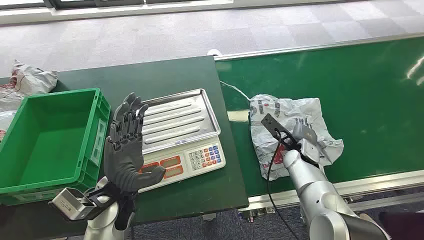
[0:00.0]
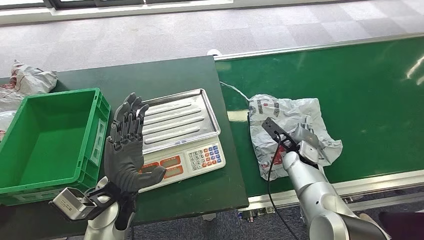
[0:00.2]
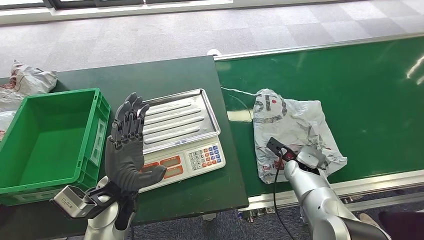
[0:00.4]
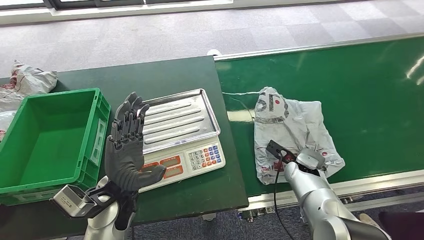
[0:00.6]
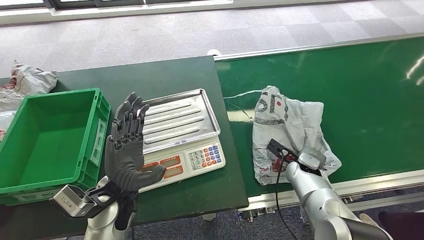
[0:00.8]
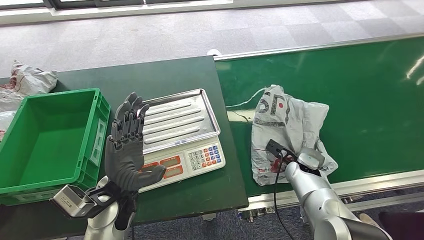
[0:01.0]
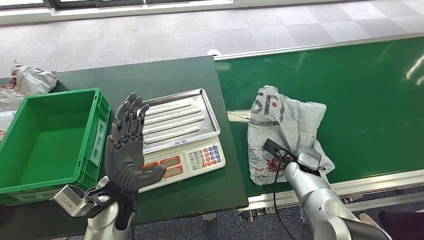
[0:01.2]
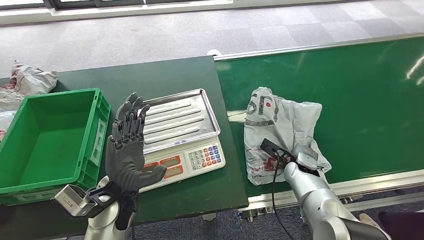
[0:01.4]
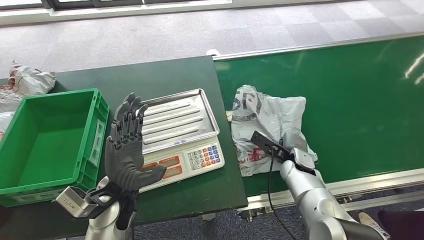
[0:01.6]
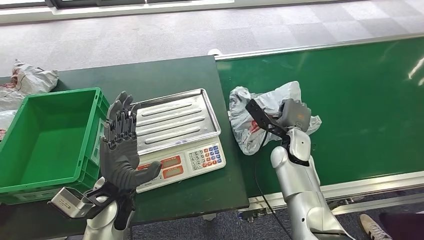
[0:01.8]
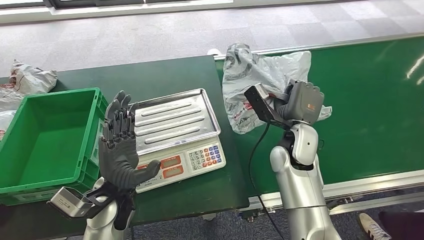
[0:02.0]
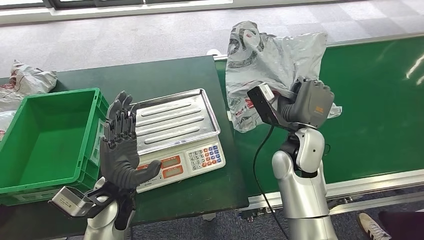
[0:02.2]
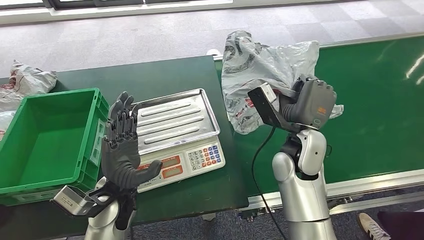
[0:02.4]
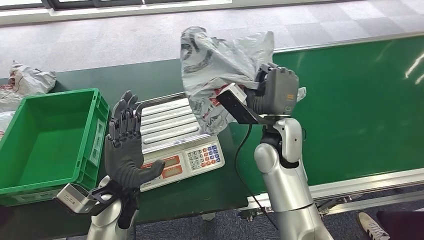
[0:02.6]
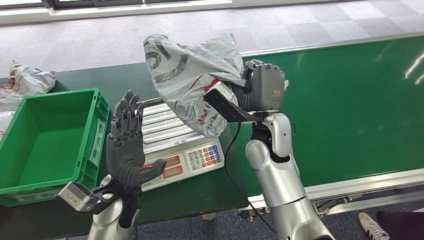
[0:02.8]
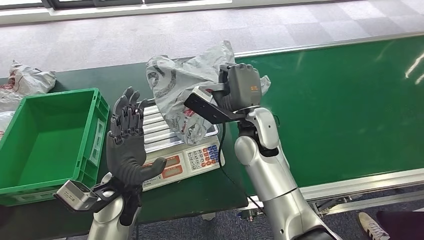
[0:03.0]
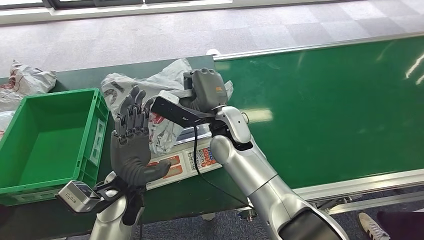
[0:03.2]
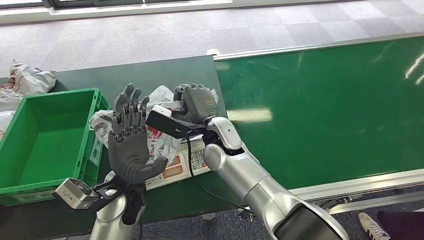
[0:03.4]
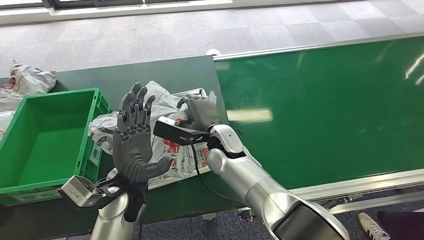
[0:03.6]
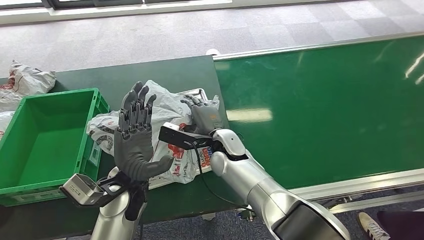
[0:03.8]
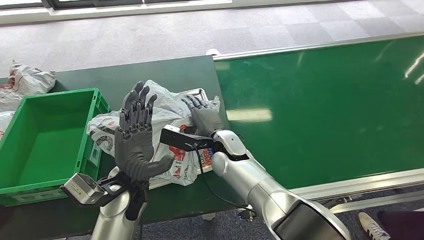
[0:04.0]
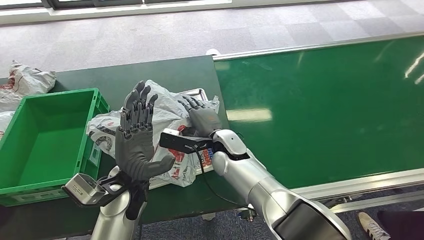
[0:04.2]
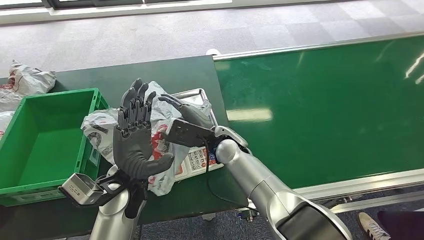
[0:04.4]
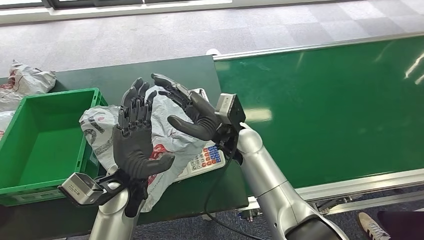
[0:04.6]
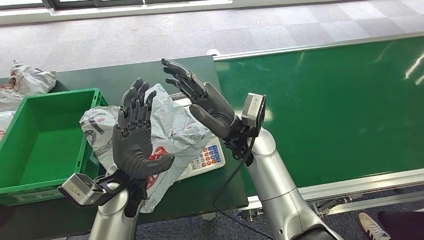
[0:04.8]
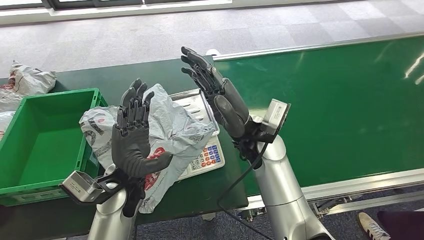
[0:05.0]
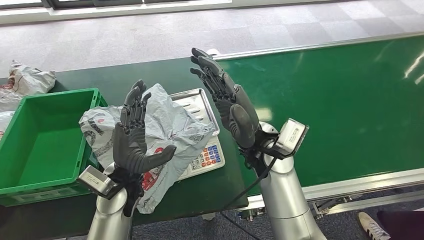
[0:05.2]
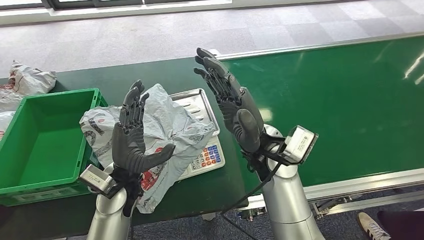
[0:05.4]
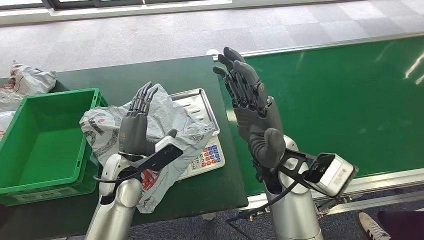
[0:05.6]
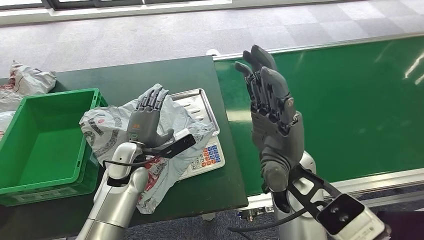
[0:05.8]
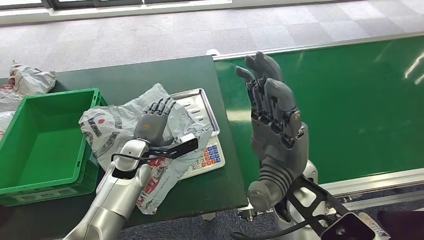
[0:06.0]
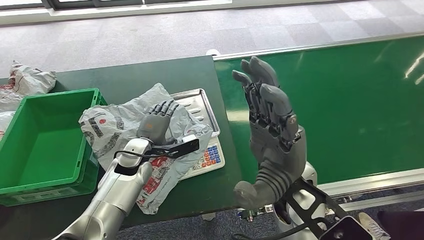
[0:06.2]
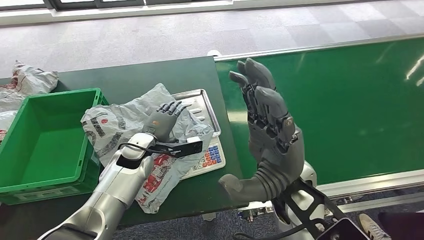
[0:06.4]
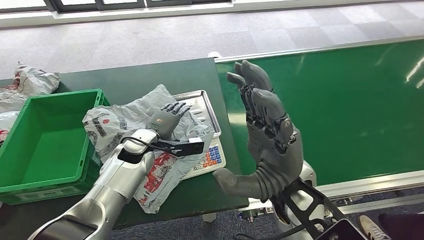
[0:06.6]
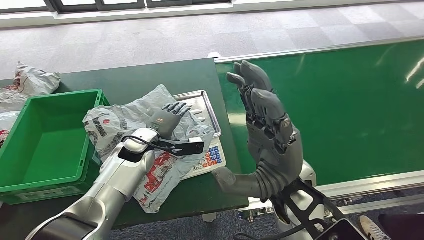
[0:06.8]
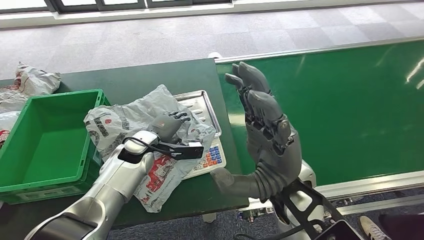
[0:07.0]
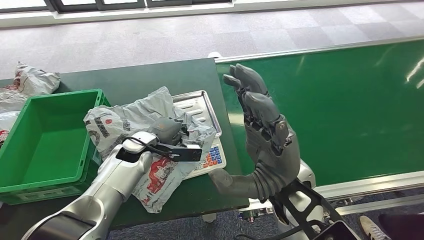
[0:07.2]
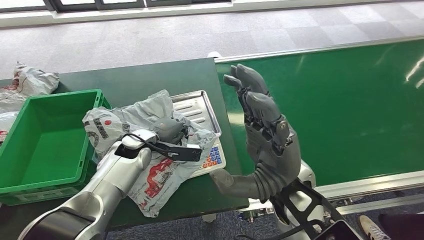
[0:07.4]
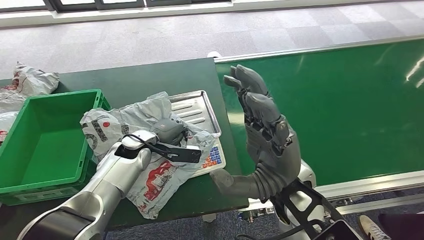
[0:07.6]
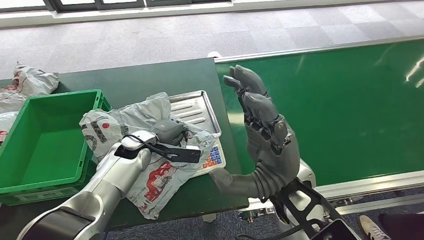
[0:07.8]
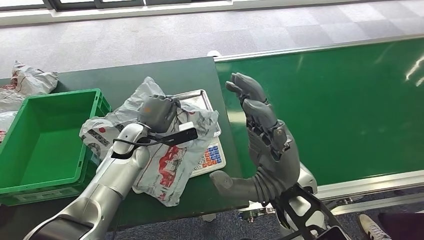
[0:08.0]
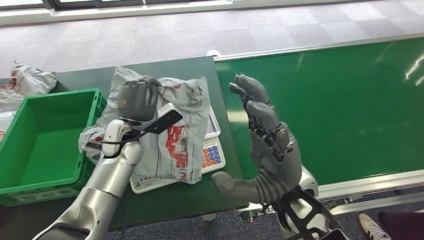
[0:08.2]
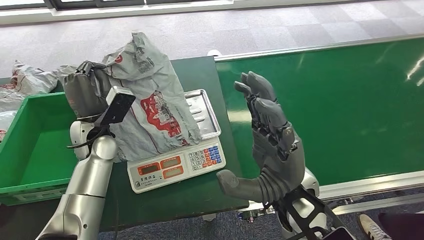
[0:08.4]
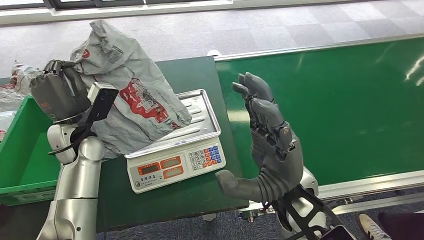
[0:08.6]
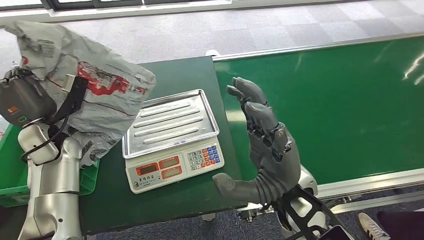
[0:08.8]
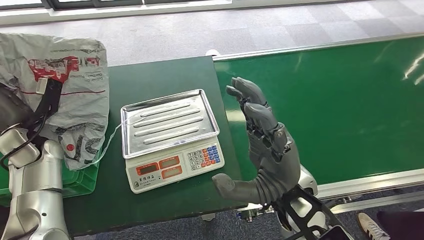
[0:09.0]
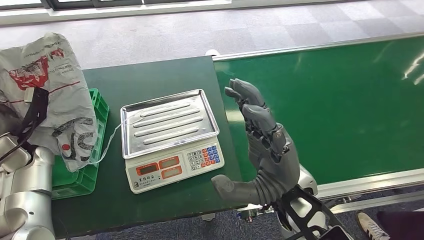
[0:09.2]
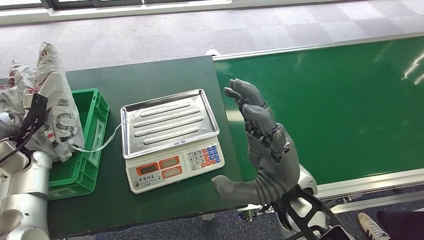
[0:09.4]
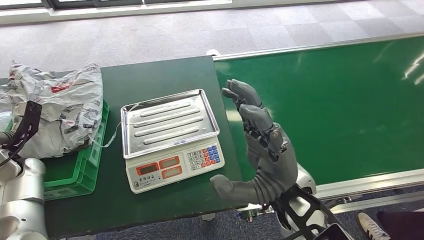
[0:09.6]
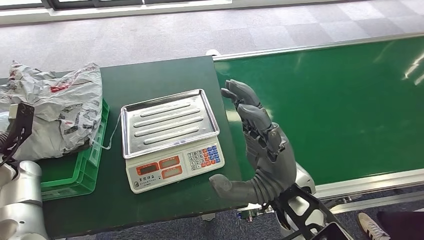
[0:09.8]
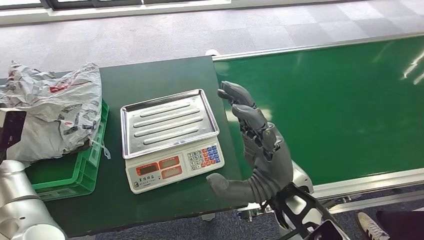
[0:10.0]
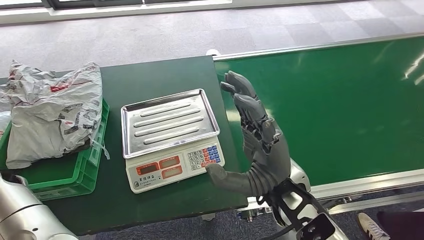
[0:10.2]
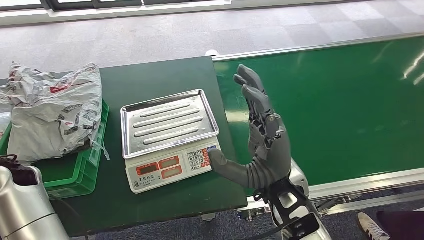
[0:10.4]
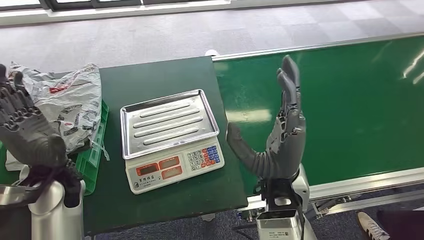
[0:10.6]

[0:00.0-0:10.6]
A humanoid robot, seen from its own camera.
Step, 0:00.0 to 0:02.0: Pick up the package from the conveyor belt.
Step, 0:02.2 to 0:04.8: Place the package onto the inbound machine.
Step, 0:05.8 to 0:08.4: Pick up the package from the inbound machine.
Step, 0:08.6 to 0:10.4: Place the package into the parcel locker.
0:03.0 to 0:04.6: The right hand moves roughly 10 cm downward and comes back.
